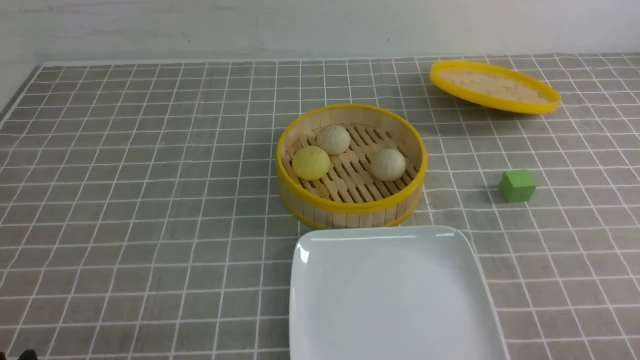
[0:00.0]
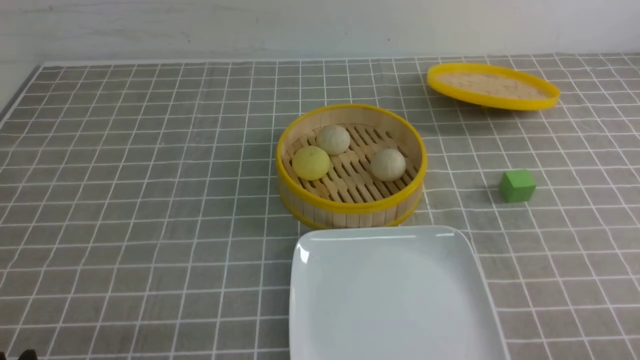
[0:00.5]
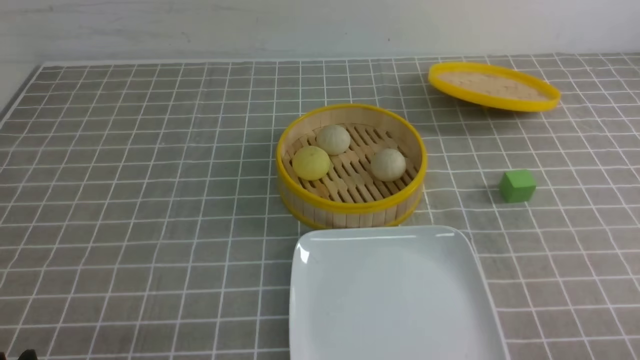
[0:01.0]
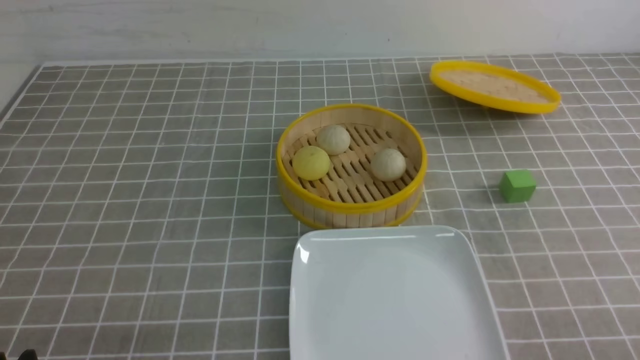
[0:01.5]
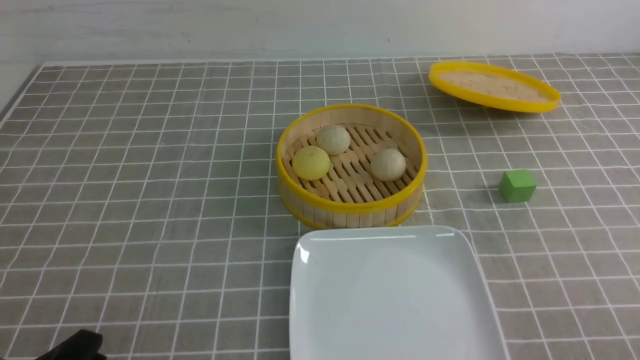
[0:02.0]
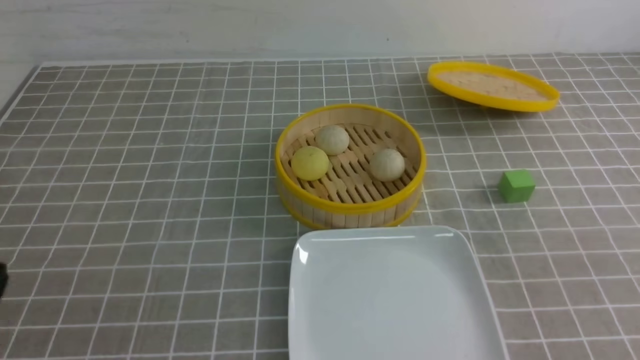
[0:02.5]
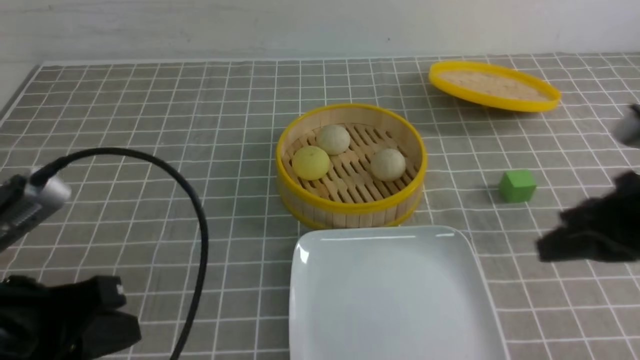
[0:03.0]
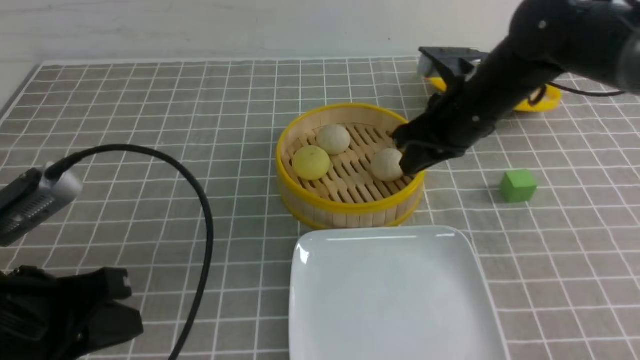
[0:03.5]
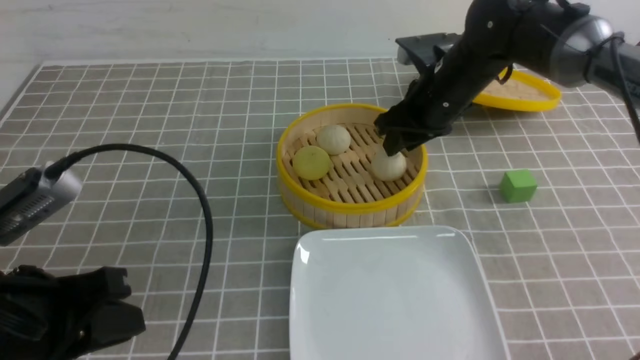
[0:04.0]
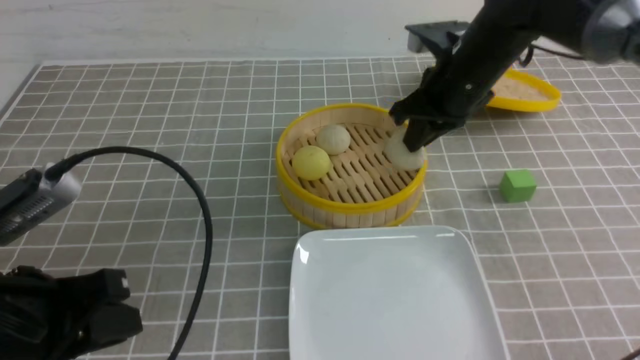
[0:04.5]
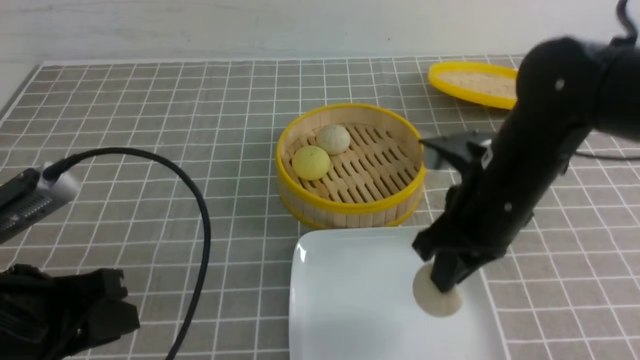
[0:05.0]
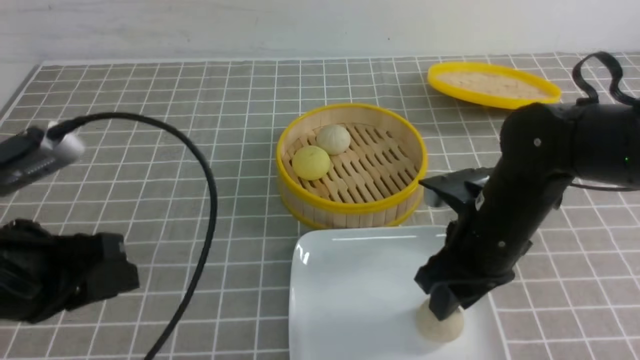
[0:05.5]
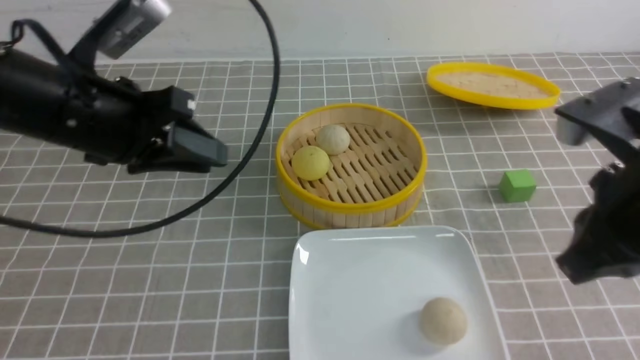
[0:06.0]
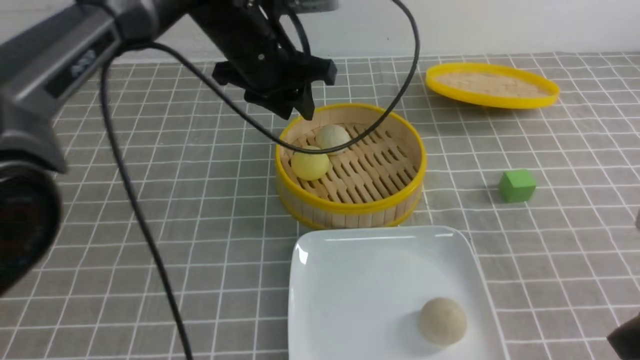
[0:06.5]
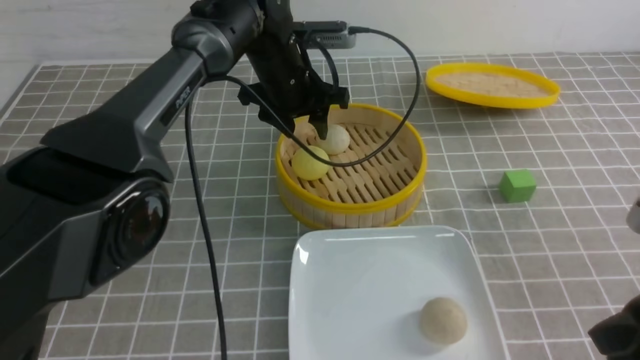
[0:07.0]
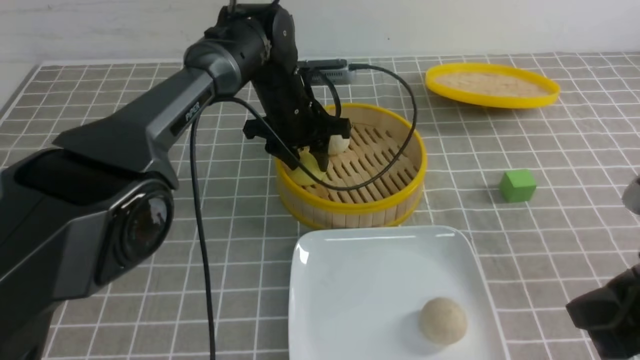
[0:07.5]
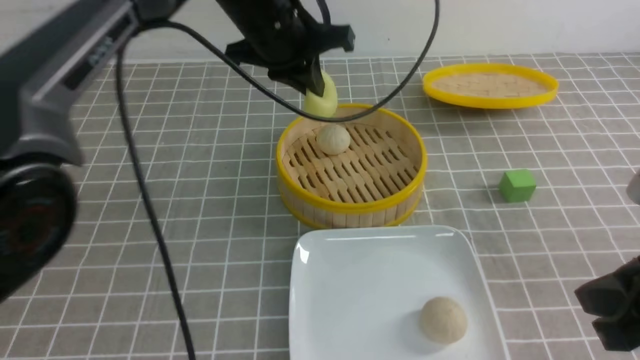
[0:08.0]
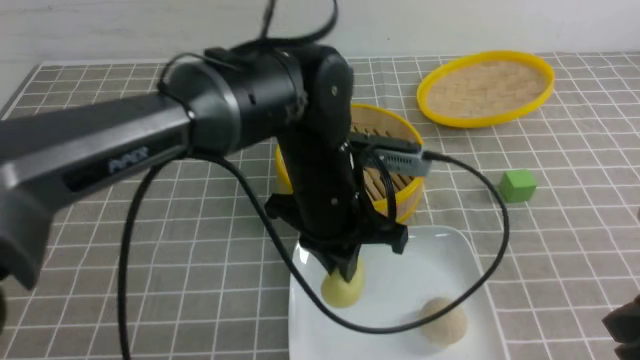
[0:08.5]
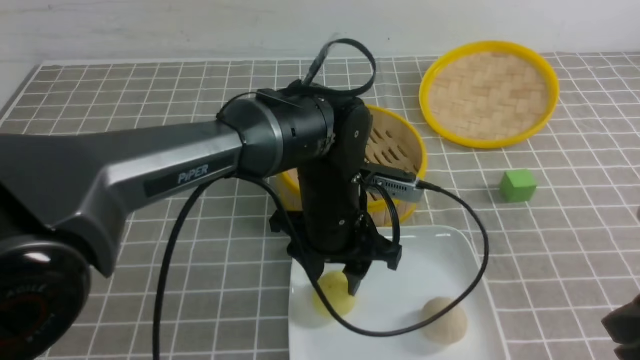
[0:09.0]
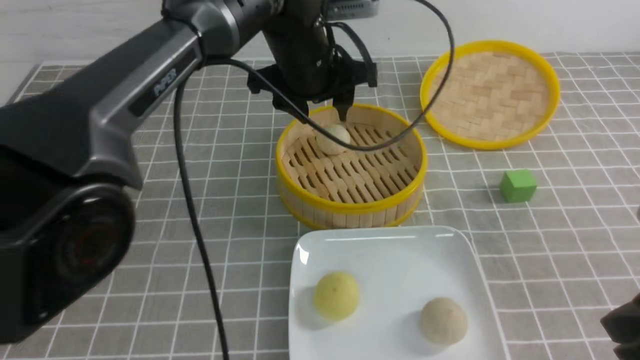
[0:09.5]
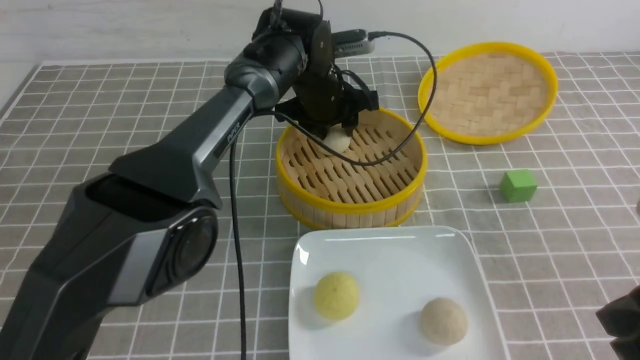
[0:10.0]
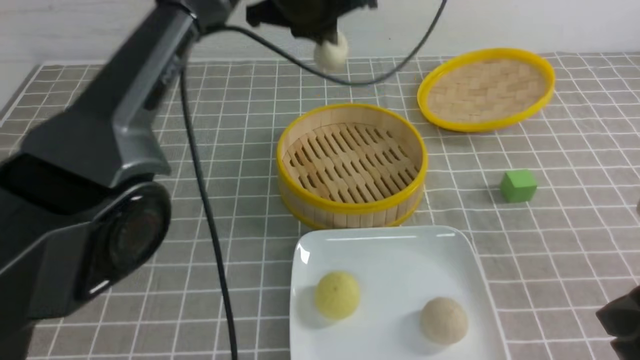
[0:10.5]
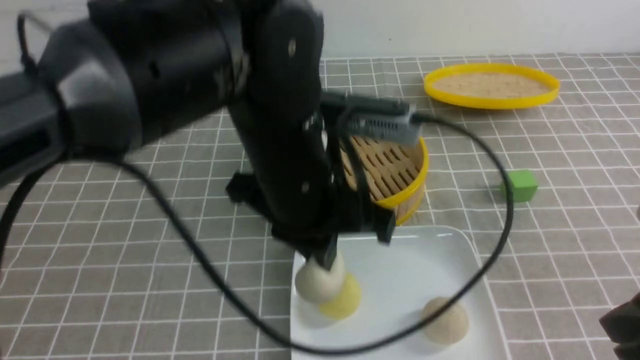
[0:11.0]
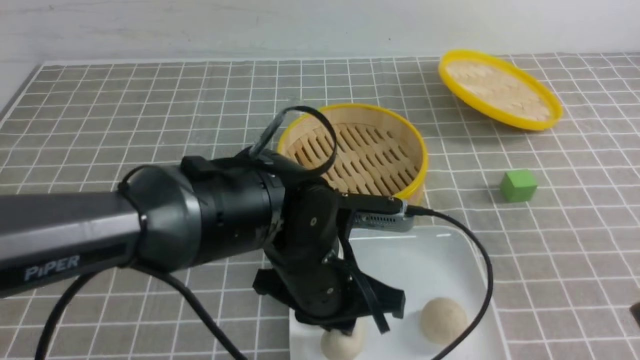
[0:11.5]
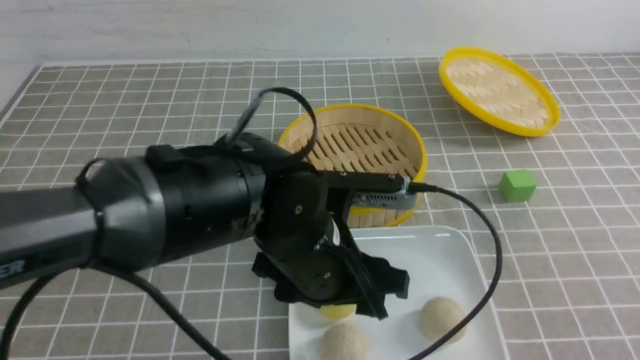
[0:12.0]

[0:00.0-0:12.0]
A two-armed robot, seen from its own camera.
Step, 0:00.0 to 0:04.0: use the right arm to grab the steamed stuffed bun that is closest to it.
Step, 0:04.5 to 0:05.0: use the right arm to put the steamed stuffed bun into the plate.
Step, 0:06.0 to 0:07.5: use the left arm to grab the steamed stuffed bun that is closest to it.
Step, 0:08.0 to 0:08.5: use the left arm to put the steamed stuffed bun into the plate.
Step, 0:09.0 to 0:10.0: use the left arm to grab the steamed stuffed bun that is closest to it.
Step, 0:10.5 to 0:11.5: use the left arm to put the steamed stuffed bun into the plate.
0:02.0 to 0:04.0: The right gripper shifts roughly 40 cm forward and to the left, and closes and opens again. Meanwhile the left gripper travels upward and forward by about 10 cm.
0:04.0 to 0:06.0: The right gripper shifts about 25 cm backward, and closes. The left gripper shifts about 15 cm forward and upward.
0:06.0 to 0:08.0: The left gripper travels to the right and forward by about 15 cm, and closes up. The right gripper travels backward by some 5 cm.
0:08.0 to 0:10.0: The left gripper moves downward and forward, roughly 15 cm, and opens up.
0:10.0 to 0:12.0: The left gripper is displaced backward by about 25 cm, and opens its fingers, while the right gripper shifts roughly 15 cm backward, to the right and upward, and closes up.

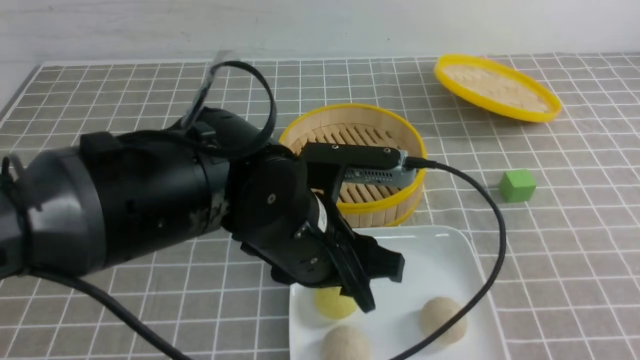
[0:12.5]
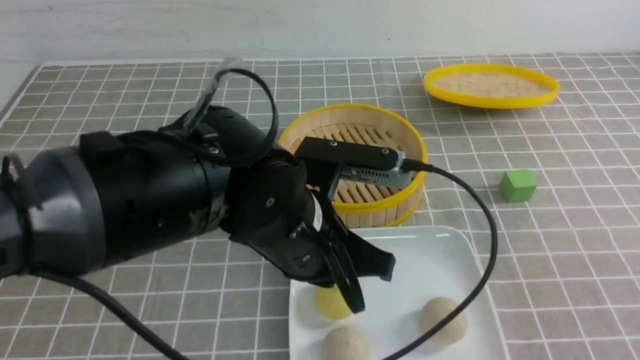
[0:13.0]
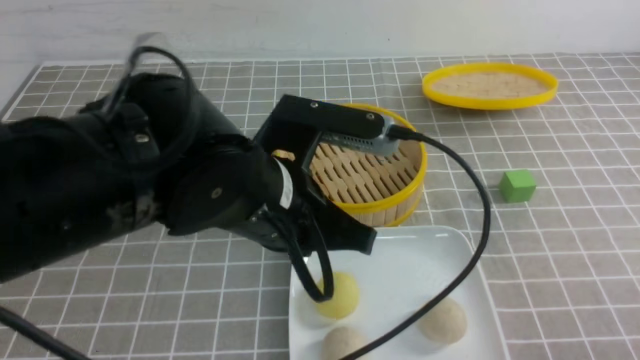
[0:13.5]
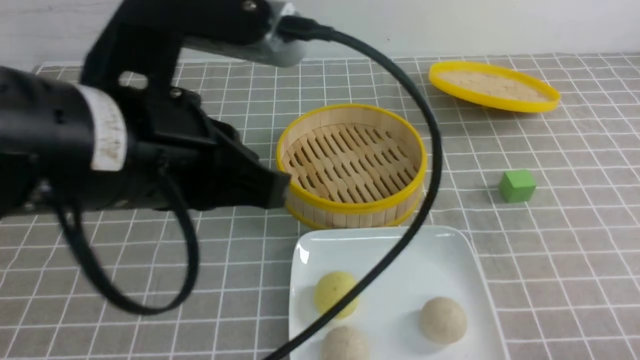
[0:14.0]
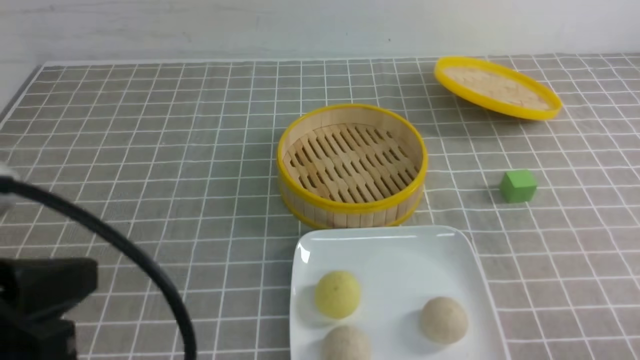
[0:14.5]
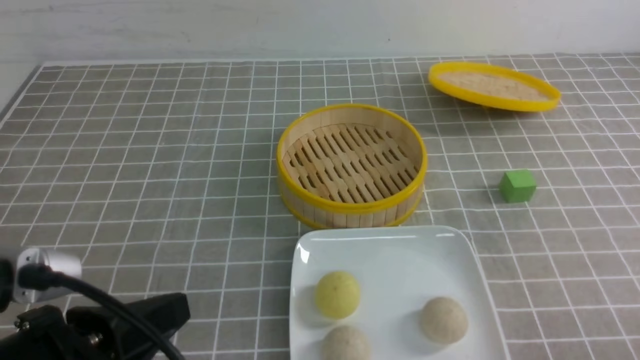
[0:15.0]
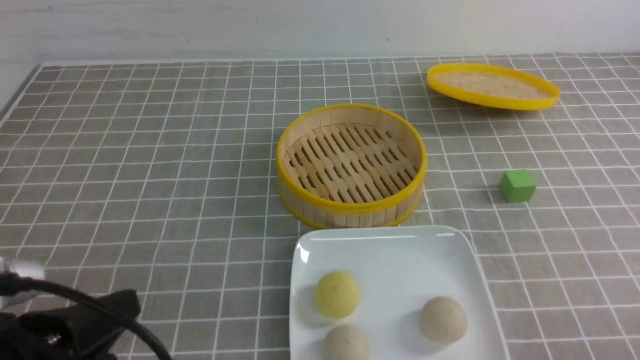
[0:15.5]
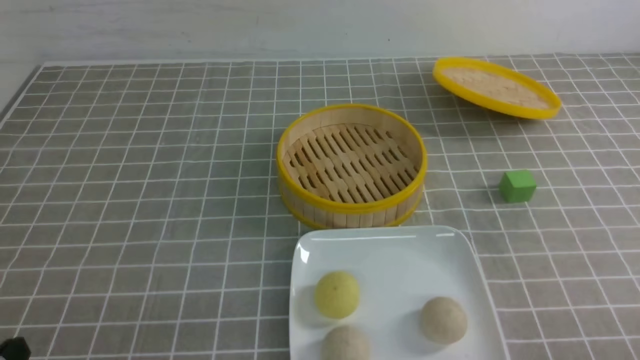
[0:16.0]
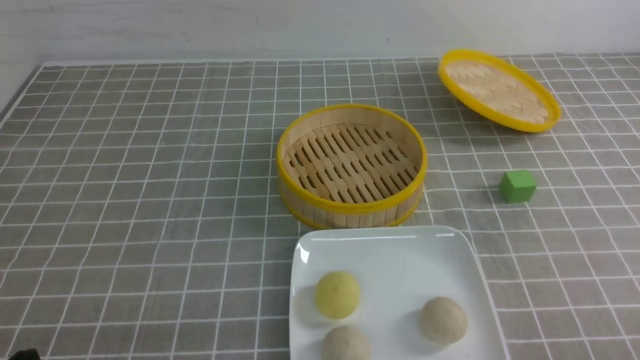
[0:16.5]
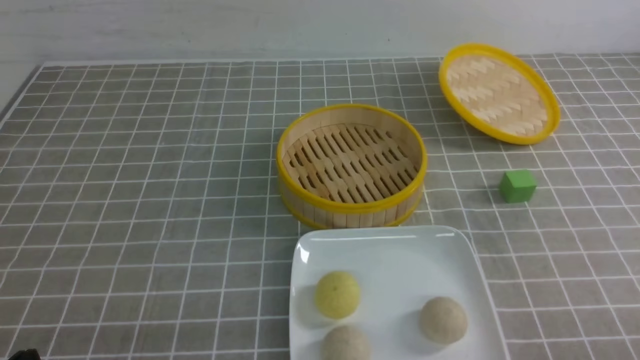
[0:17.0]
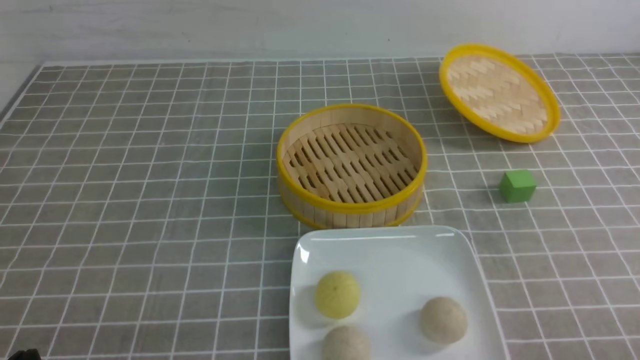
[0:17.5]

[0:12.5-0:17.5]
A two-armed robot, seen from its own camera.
0:12.5 to 0:15.0: The right gripper moves downward, some 15 cm. Meanwhile the left gripper shifts approximately 20 cm to the left and backward, and closes.
0:15.0 to 0:17.5: The left gripper travels downward and to the left by roughly 15 cm; the right gripper opens its fingers.
